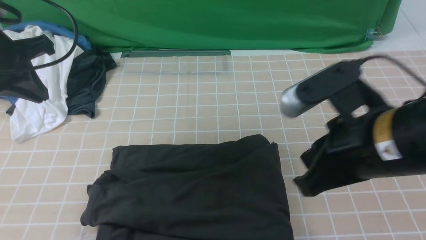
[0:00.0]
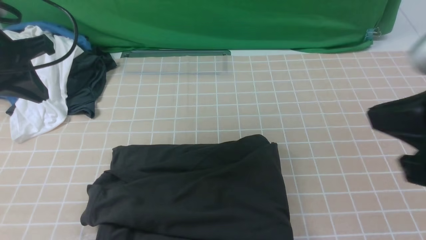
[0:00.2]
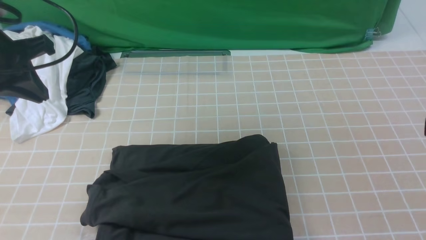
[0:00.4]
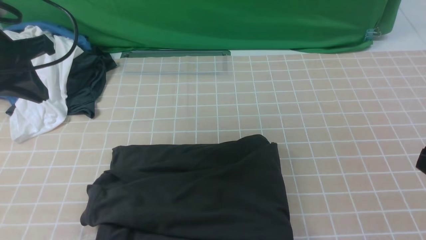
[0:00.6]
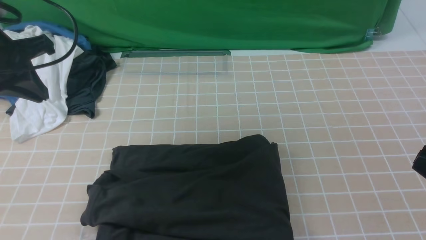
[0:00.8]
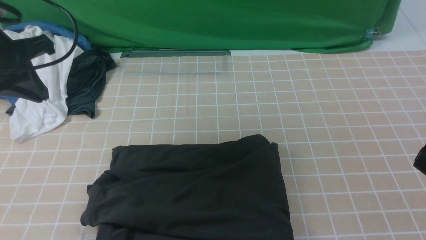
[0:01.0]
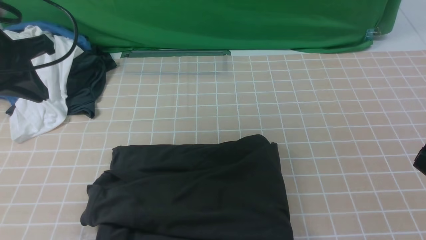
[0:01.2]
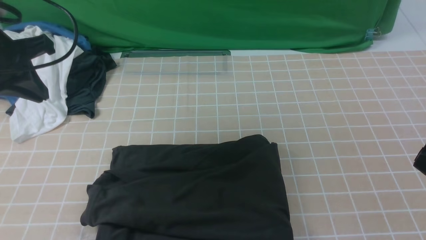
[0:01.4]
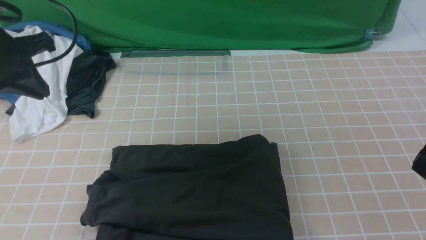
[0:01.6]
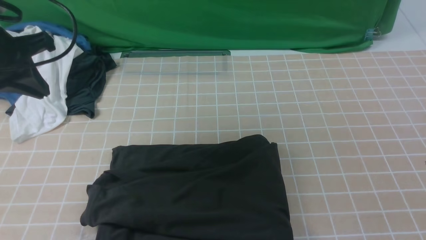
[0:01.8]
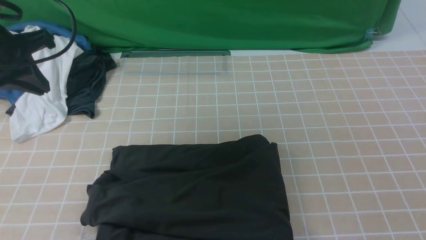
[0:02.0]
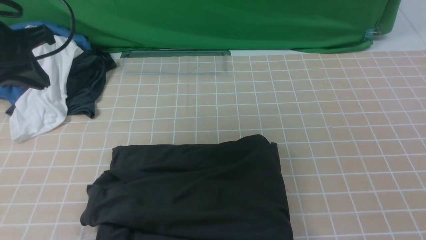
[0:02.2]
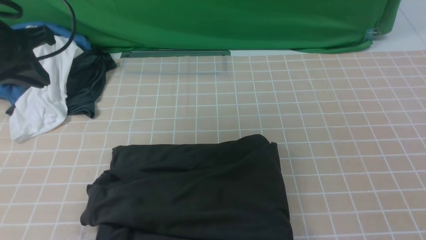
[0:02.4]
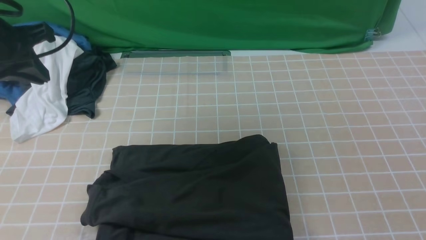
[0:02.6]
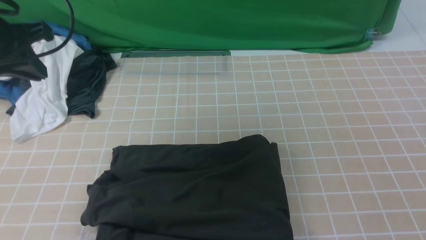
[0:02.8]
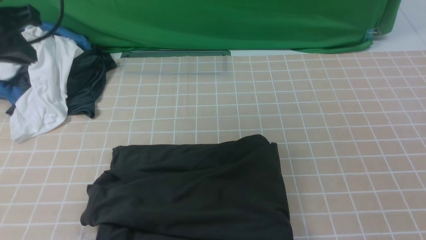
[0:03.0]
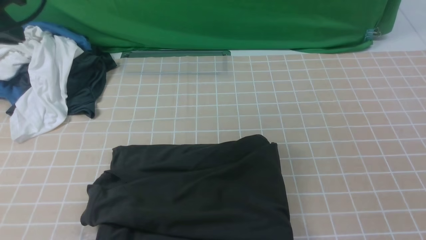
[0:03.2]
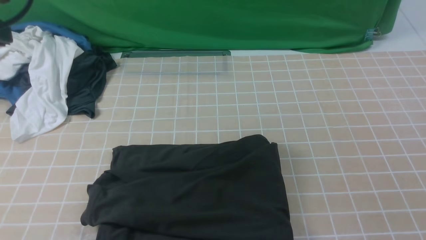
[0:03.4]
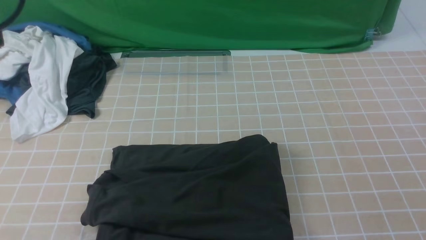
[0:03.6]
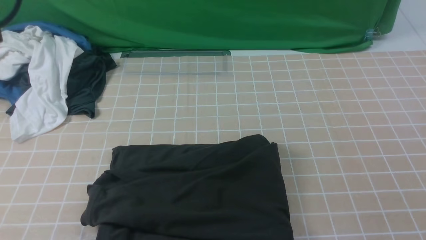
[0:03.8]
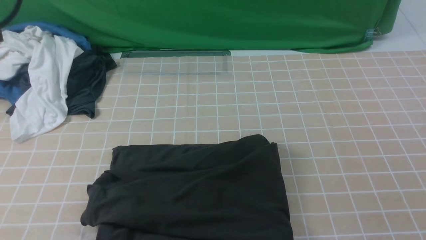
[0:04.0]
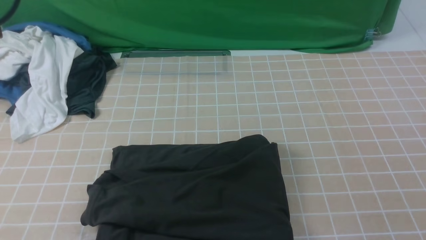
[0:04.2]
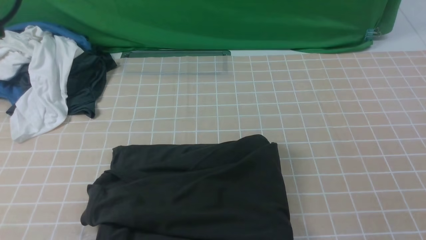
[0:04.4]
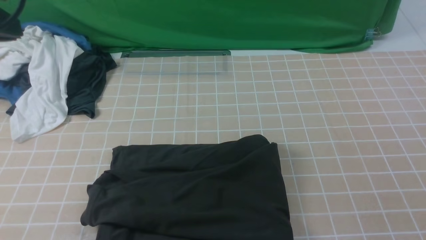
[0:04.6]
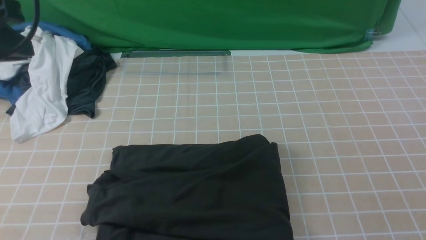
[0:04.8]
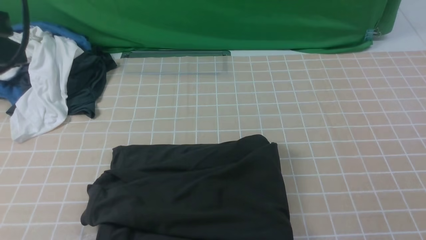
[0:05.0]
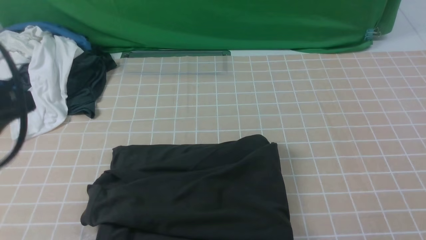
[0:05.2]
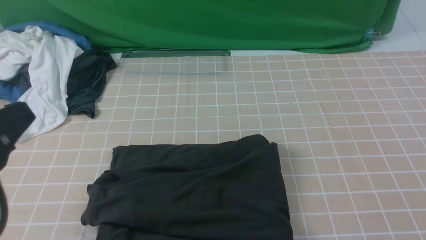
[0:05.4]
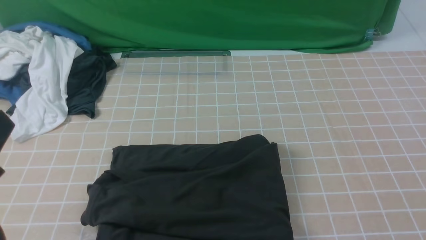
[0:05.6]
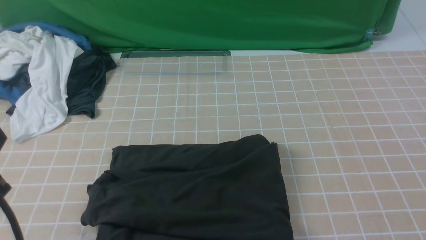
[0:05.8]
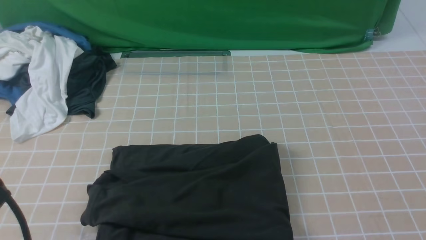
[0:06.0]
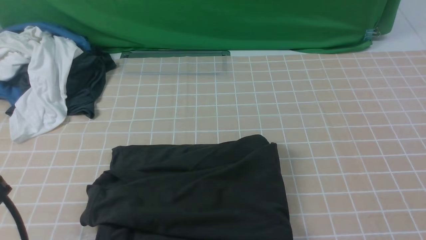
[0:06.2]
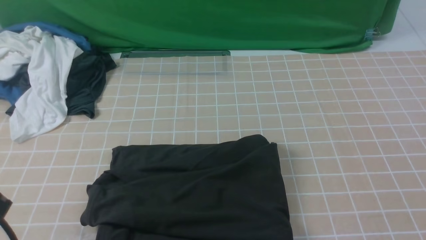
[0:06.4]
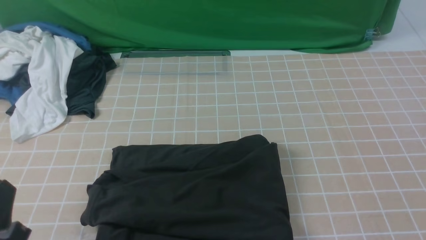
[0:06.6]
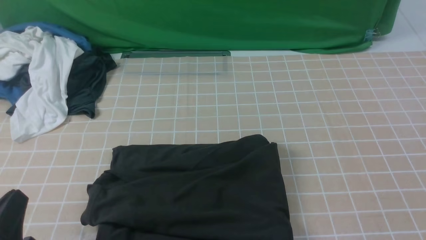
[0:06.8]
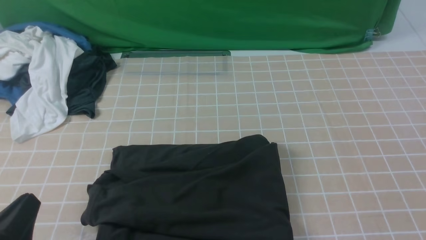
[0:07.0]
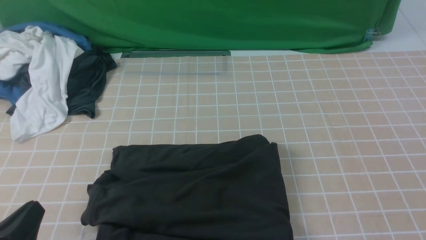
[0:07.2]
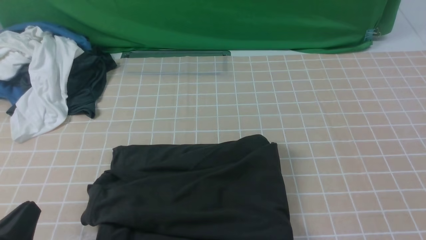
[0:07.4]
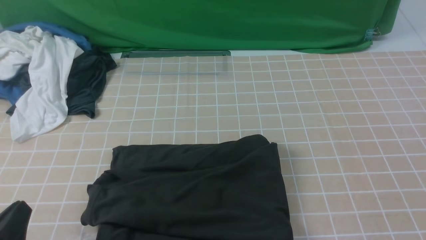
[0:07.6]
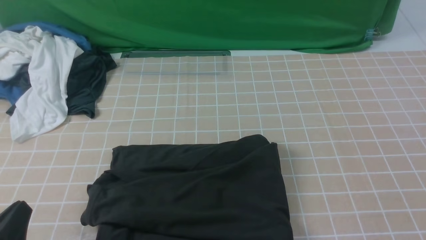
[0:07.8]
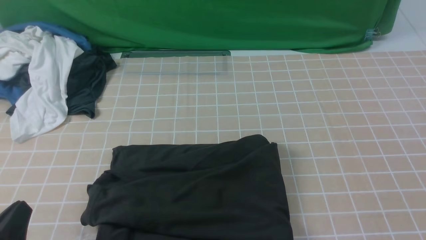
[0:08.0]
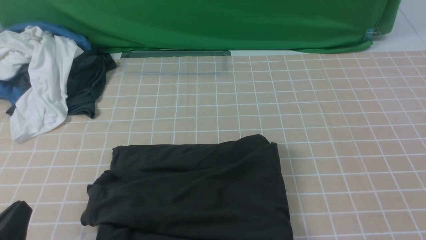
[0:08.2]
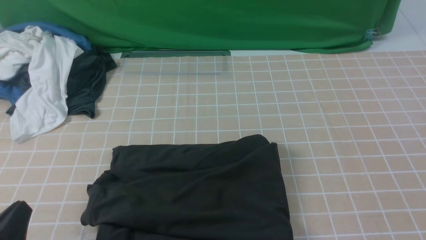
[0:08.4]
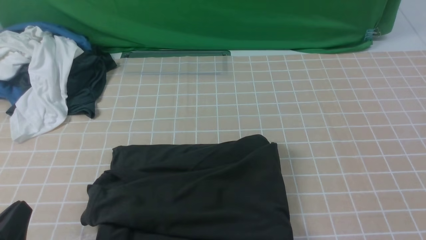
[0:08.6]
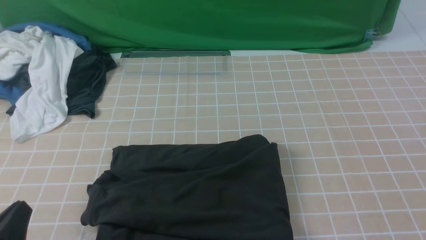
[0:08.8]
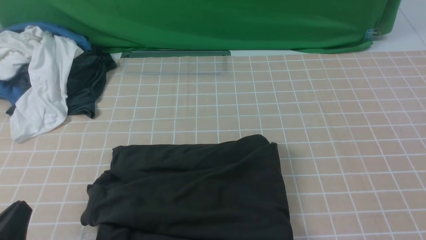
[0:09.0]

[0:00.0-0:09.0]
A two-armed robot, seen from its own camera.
0:00.0 to 0:01.6: The right gripper goes about 15 cm to the right and backward.
0:03.0 to 0:04.4: The left gripper shifts approximately 10 cm backward and upward.
0:04.4 to 0:06.0: The left gripper moves backward and downward, roughly 20 cm.
0:06.0 to 0:07.6: The left gripper is displaced downward by some 10 cm.
0:07.6 to 0:09.0: Both grippers stay put.
